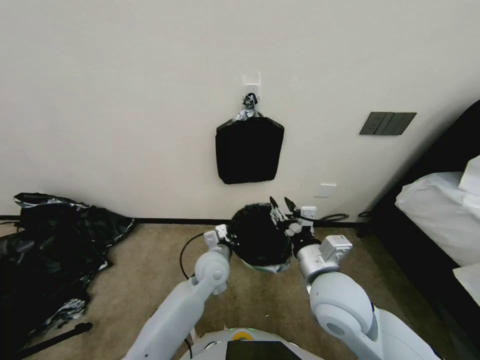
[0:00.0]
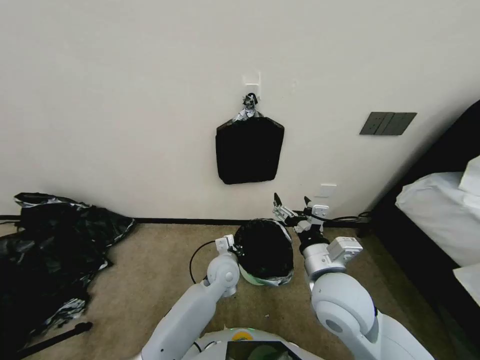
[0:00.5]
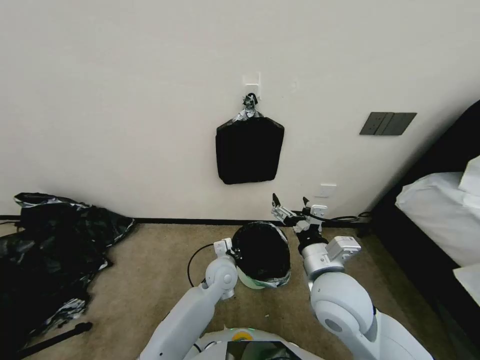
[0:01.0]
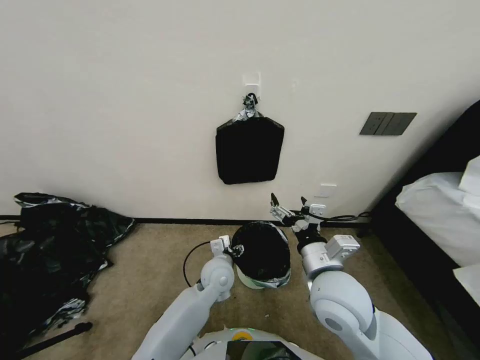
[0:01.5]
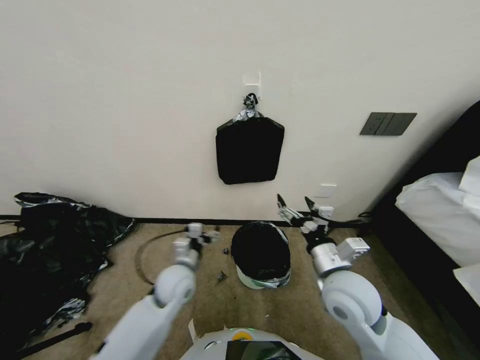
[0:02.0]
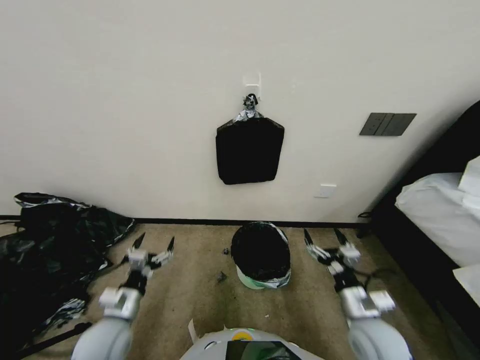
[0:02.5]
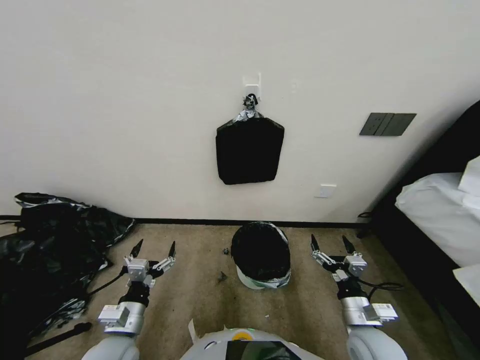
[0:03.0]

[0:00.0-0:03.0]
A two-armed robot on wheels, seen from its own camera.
Task of the whole recording: Place a trash bag onto the trash bin.
0:00.0 to 0:01.5: The right gripper opens its fingers. Meanwhile the left gripper opens up.
0:01.5 to 0:03.0: The right gripper moves downward, to the right and backward, about 20 cm; the left gripper is displaced to the left and backward by approximately 30 cm, and opens its fingers.
